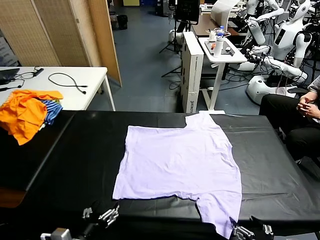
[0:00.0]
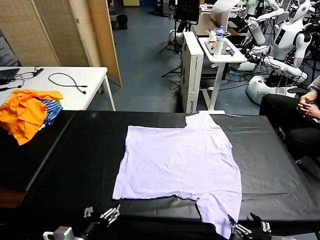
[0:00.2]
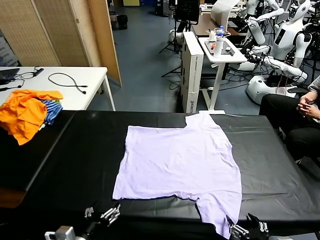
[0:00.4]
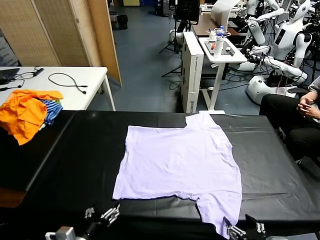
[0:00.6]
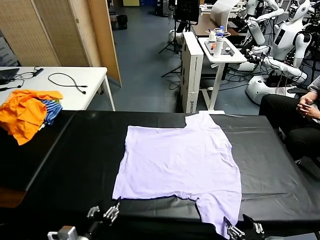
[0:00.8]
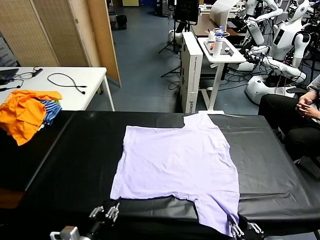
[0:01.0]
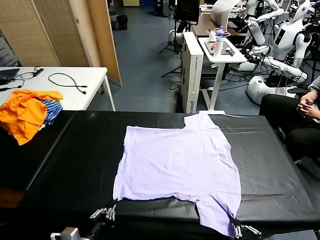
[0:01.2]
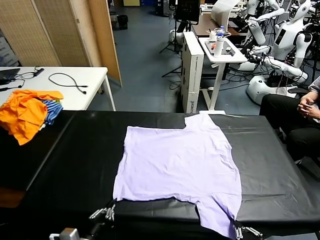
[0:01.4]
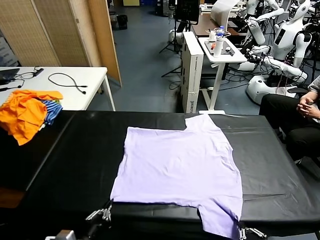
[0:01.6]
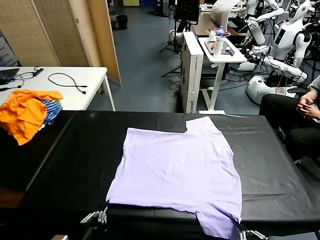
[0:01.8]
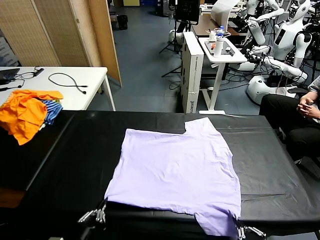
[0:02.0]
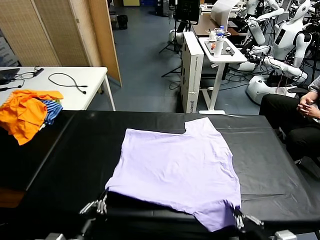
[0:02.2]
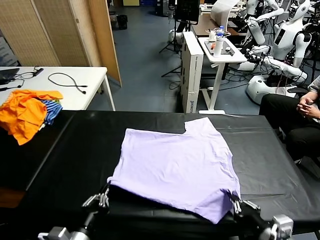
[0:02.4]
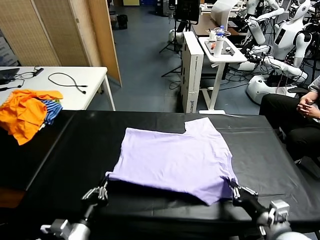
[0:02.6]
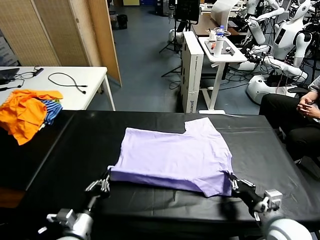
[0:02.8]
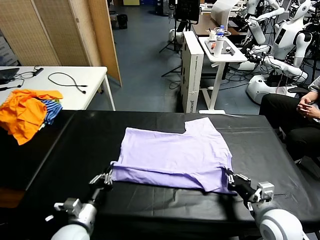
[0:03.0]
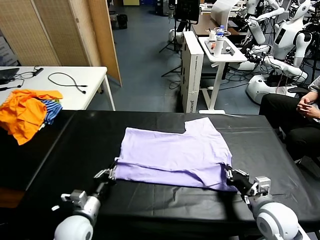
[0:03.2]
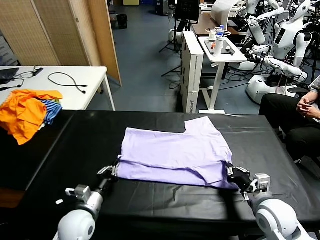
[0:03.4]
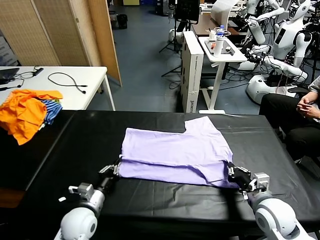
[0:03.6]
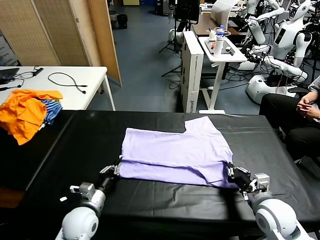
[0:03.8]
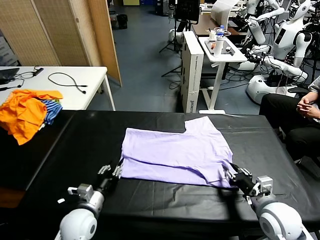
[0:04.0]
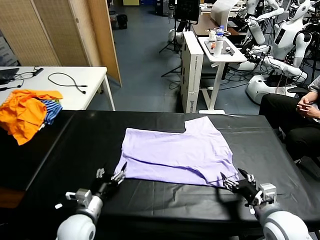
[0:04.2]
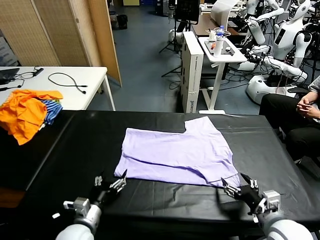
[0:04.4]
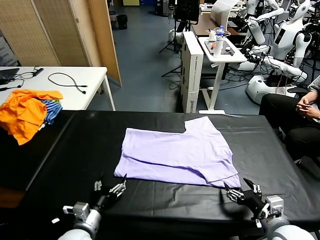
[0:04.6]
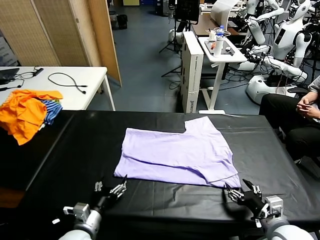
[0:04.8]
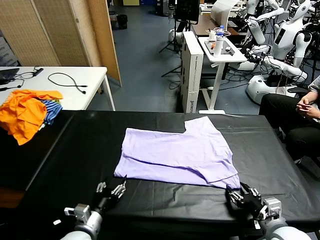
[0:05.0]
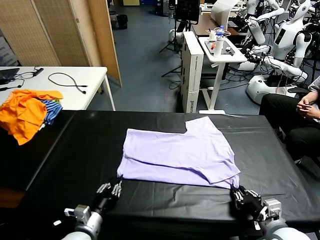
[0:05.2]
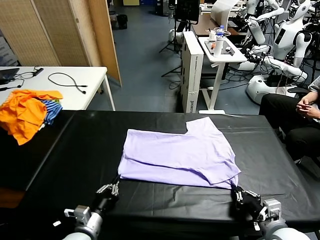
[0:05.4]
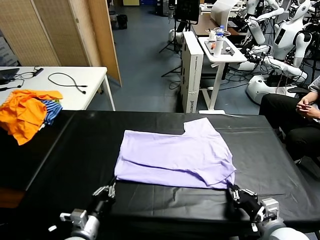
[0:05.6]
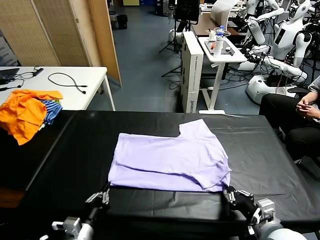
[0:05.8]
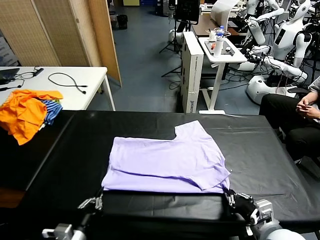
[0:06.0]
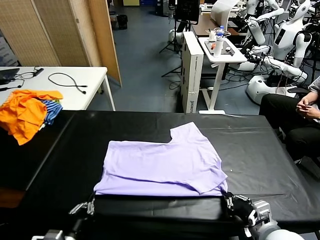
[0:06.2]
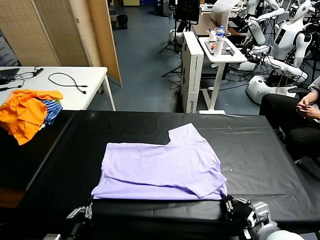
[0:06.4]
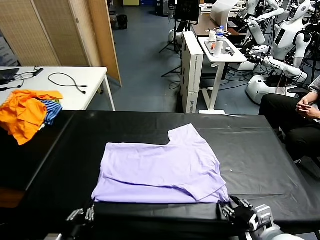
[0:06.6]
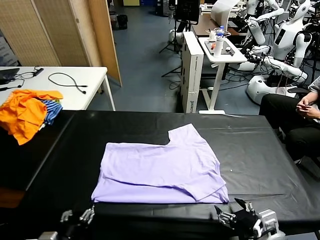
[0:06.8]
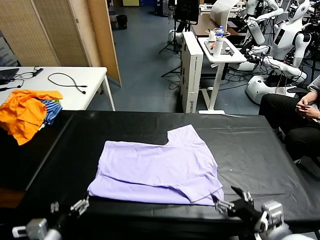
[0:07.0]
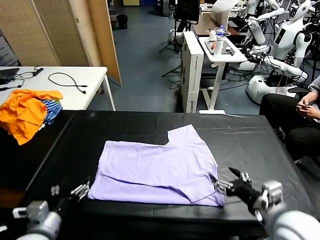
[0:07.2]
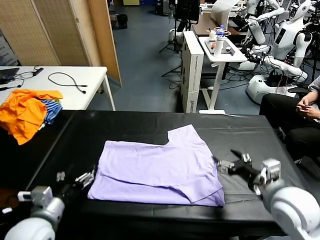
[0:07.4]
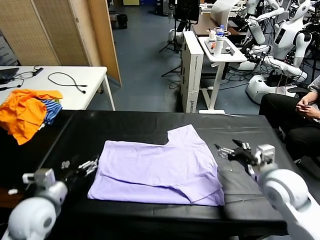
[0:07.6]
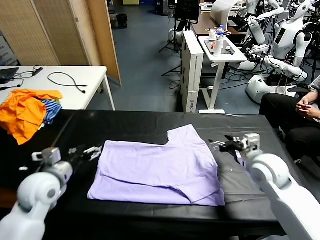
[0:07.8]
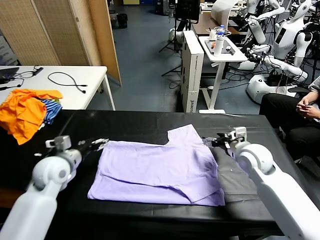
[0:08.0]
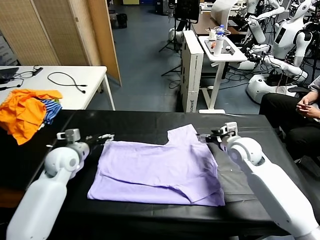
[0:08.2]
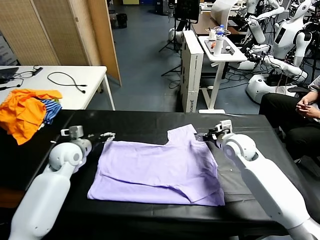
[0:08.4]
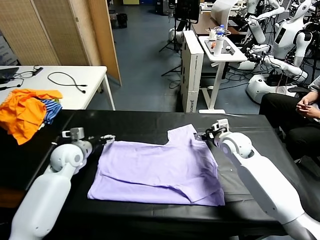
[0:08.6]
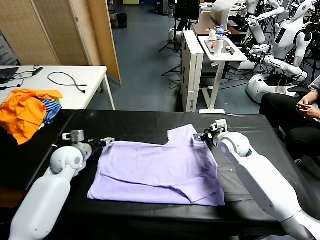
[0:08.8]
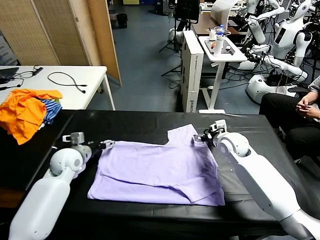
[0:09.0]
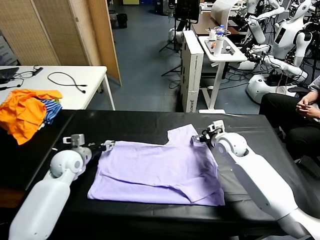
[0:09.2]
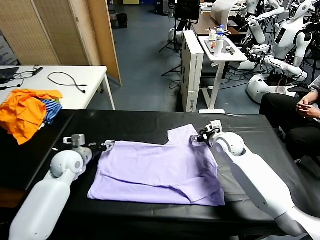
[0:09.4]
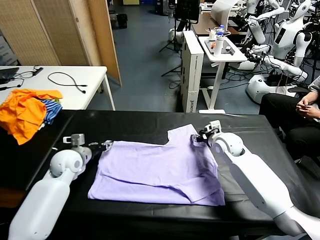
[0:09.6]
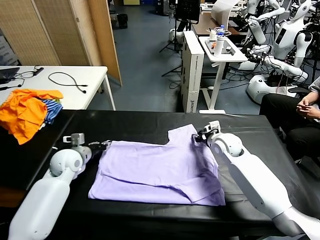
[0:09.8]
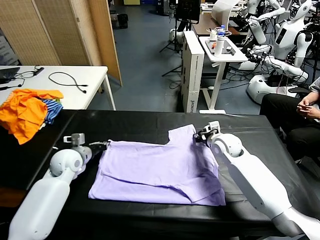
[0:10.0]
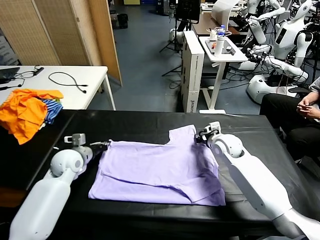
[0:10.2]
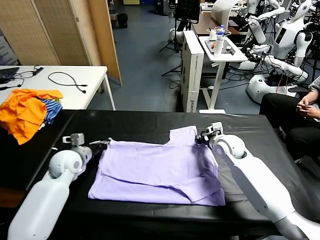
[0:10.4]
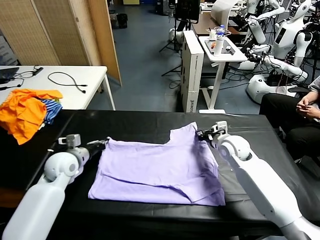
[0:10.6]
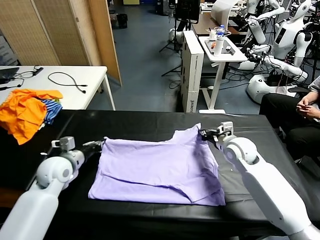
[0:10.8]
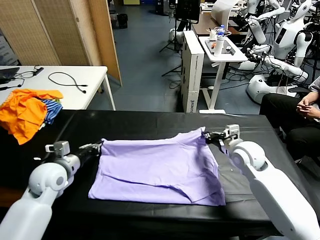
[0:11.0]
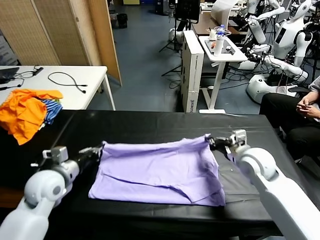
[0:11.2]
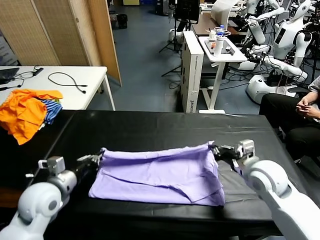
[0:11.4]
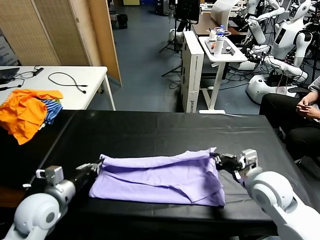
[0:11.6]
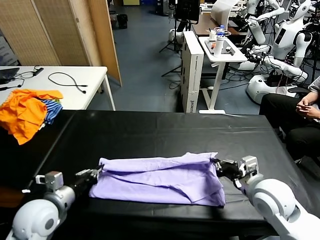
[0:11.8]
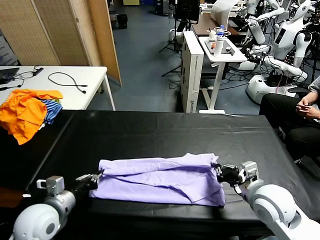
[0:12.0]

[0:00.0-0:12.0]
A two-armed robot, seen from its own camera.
Task of the whole recording: fold and organize the clothes.
Step, 0:00.0 to 0:01.6: use both grippers simultaneously to clamp the lower edge of the clothing fabric.
Step, 0:01.8 to 0:04.0: use both grippers to drag the lower edge of the fabric forward and fold it over the upper edge.
Step, 0:04.4 to 0:07.0: Drag the clothes downward with both gripper.
Step, 0:07.2 to 0:10.0: use both grippers simultaneously to clamp the upper edge of the clothing fabric.
0:01.6 to 0:03.0: The two grippers go approximately 15 cm forward.
0:03.0 to 0:04.4: The left gripper opens up; the right gripper moves backward, some 5 cm, and opens its fingers.
0:04.4 to 0:06.0: The left gripper heads backward, covering about 10 cm, and closes; the right gripper closes.
0:06.0 to 0:07.6: The left gripper is displaced forward and upward by some 20 cm, and opens up. Meanwhile the right gripper moves forward, approximately 20 cm, and opens its fingers.
0:07.6 to 0:09.0: The grippers both shift forward and downward by about 15 cm.
0:09.0 to 0:10.4: The left gripper closes. The right gripper closes its fingers.
0:10.4 to 0:12.0: The grippers both shift backward by some 20 cm.

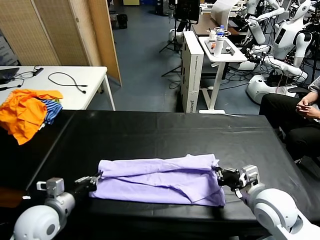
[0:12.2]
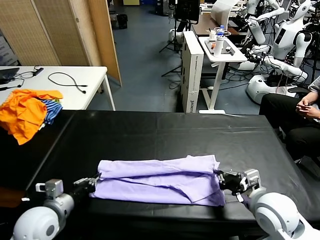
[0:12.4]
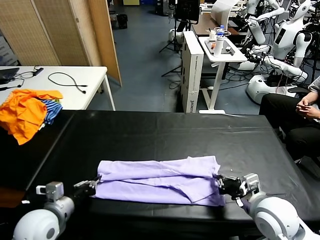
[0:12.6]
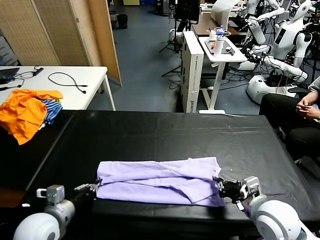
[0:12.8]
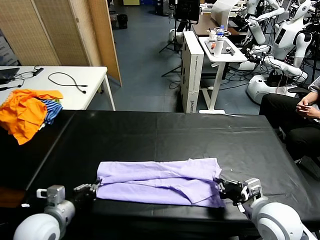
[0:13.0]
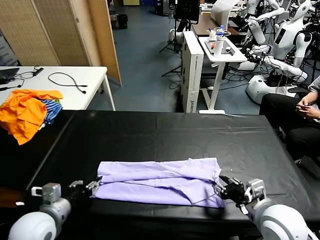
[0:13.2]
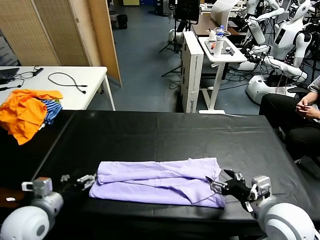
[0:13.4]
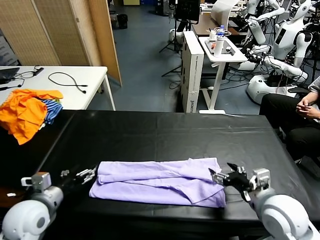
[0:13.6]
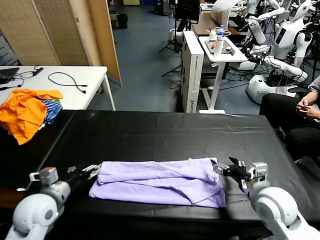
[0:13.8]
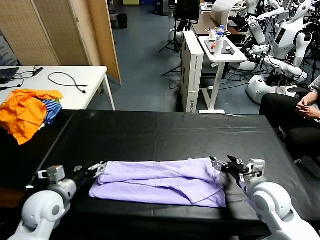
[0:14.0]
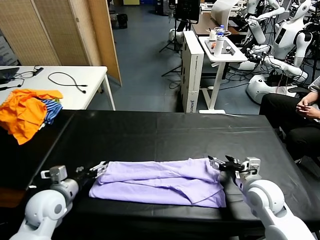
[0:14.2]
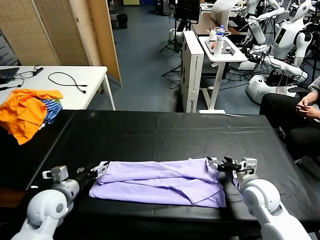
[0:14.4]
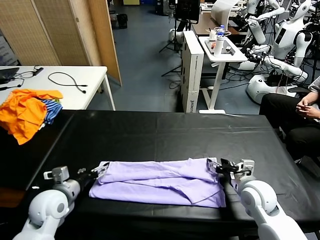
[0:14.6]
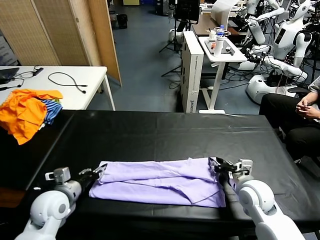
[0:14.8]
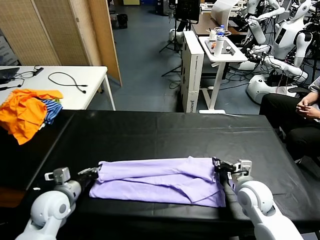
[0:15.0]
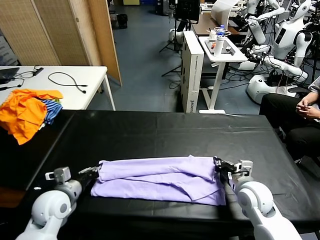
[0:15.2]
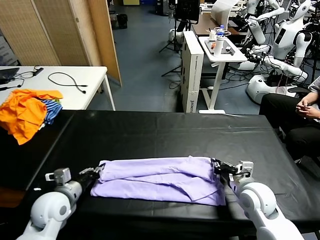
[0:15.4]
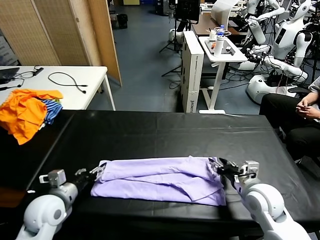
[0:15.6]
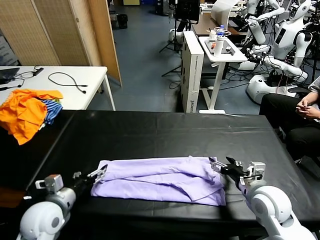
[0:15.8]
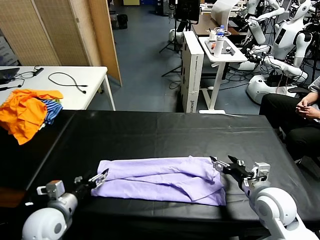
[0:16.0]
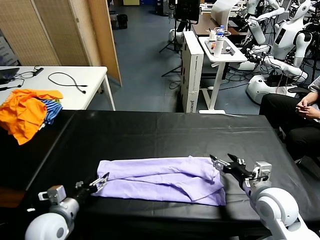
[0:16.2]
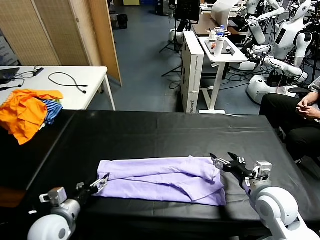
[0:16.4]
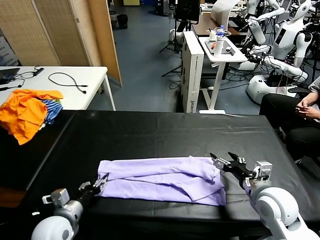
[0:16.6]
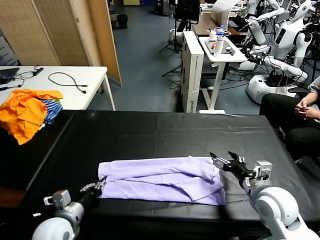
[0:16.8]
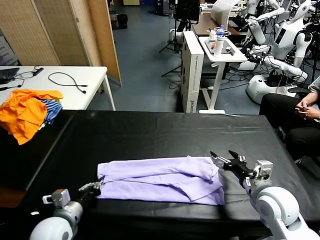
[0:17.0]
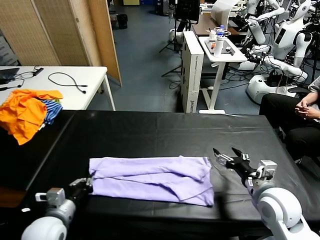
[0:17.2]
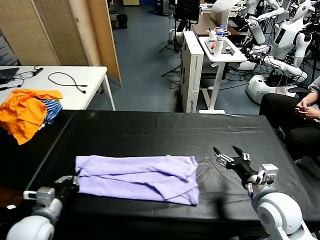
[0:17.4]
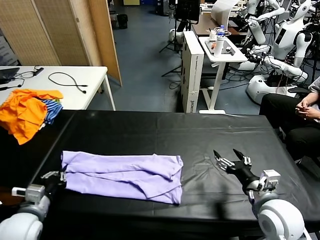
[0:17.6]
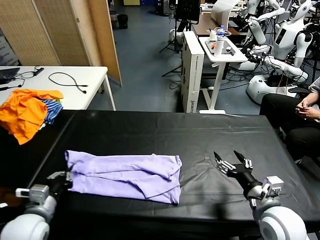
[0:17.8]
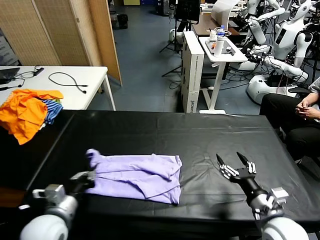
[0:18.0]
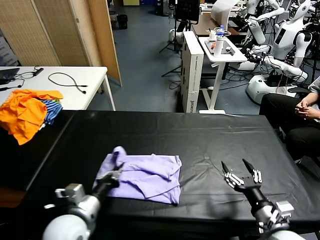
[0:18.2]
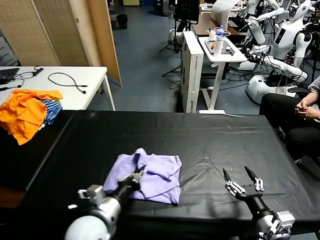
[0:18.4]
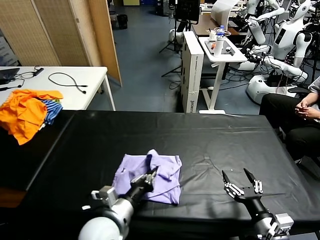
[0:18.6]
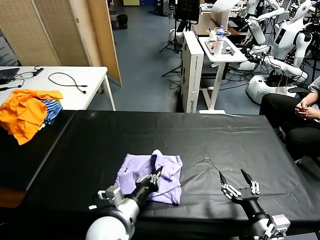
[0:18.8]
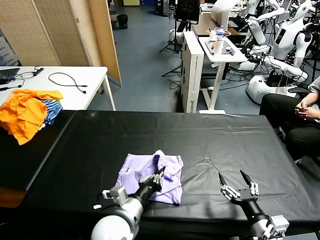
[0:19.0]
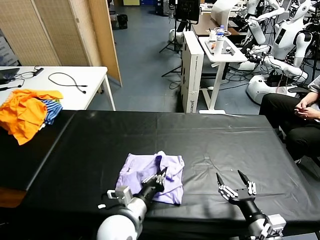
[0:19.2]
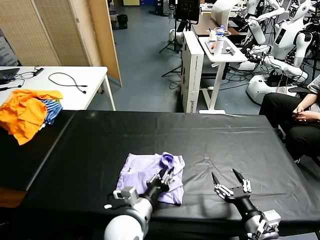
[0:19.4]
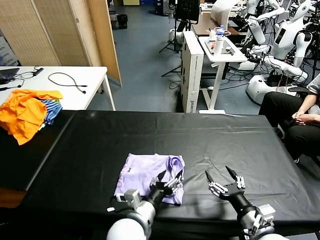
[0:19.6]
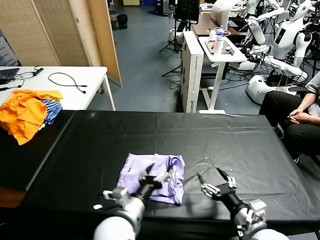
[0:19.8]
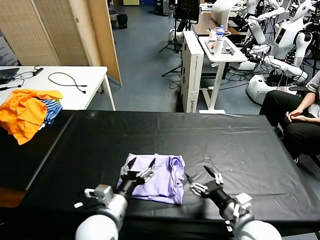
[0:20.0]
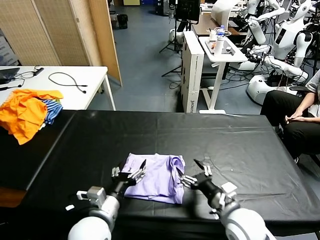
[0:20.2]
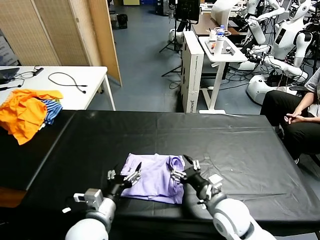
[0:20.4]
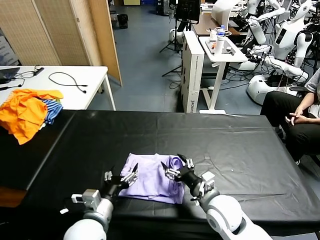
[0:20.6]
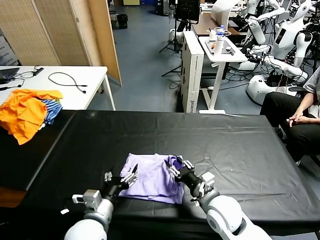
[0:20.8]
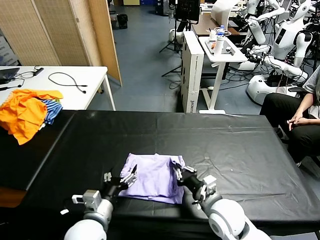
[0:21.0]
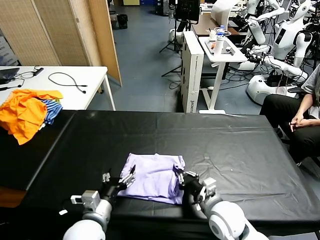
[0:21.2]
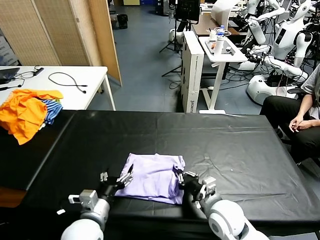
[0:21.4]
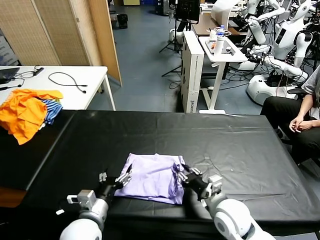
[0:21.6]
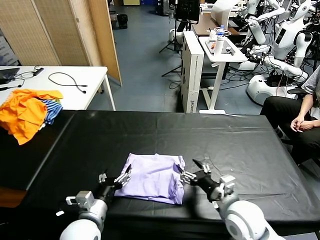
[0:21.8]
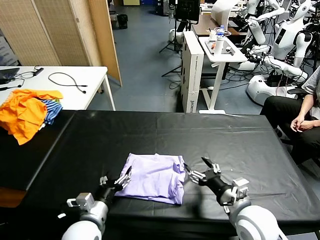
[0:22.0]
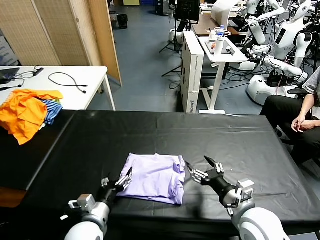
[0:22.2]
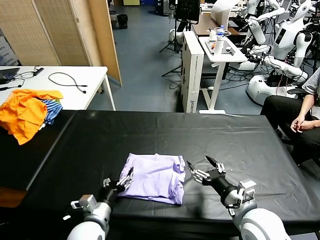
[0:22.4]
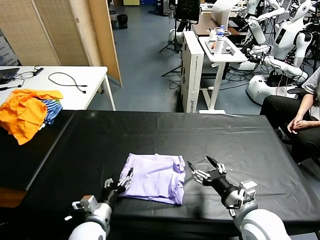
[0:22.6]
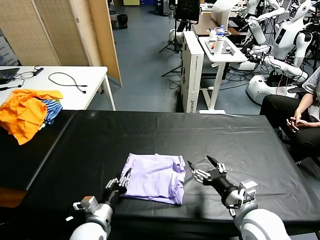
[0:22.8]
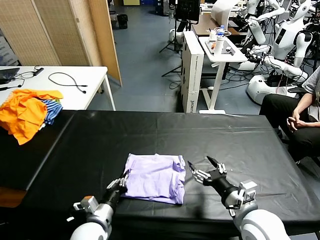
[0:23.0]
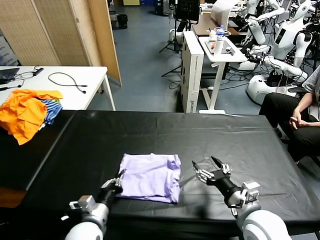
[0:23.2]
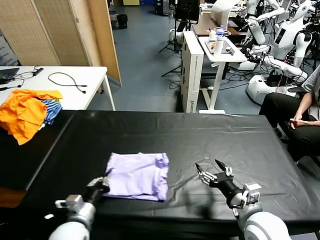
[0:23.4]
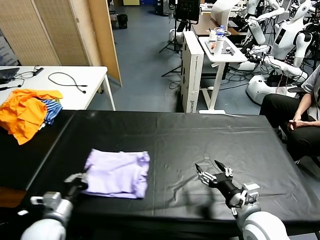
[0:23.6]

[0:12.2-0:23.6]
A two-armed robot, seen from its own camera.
Task of the whole recording: fold and organize the clothes.
Step, 0:12.2 to 0:15.6: use both grippers to drag the upper edge of the fabric backward and fold it over the lower edge.
Step, 0:15.8 to 0:16.8: use the left gripper to clamp the left edge of the fabric.
Step, 0:17.0 to 0:21.8: use the left gripper to drag the left edge of the fabric to the left and folds it over the right edge.
0:12.2 to 0:13.6: The right gripper opens up. Meanwhile the left gripper opens its fingers.
0:13.6 to 0:15.0: The left gripper ends up about 5 cm from where it was, and closes. Meanwhile the right gripper travels downward by about 5 cm, and closes.
0:15.0 to 0:16.4: The right gripper moves upward, some 5 cm, and opens up, while the left gripper travels backward by roughly 5 cm, and opens its fingers.
0:16.4 to 0:17.8: The right gripper moves backward, some 5 cm. Meanwhile the left gripper shifts by roughly 5 cm, and closes its fingers.
0:17.8 to 0:19.4: The left gripper goes approximately 25 cm to the right, and opens up. The right gripper shifts by some 5 cm.
0:19.4 to 0:20.8: The left gripper is displaced to the left by roughly 10 cm, and opens. The right gripper moves forward and to the left, some 15 cm, and closes.
0:20.8 to 0:22.2: The right gripper is displaced to the right, upward and backward by about 10 cm, and opens. The left gripper ends up about 5 cm from where it was.
0:22.2 to 0:23.6: The left gripper heads to the left, covering roughly 10 cm, and closes.
